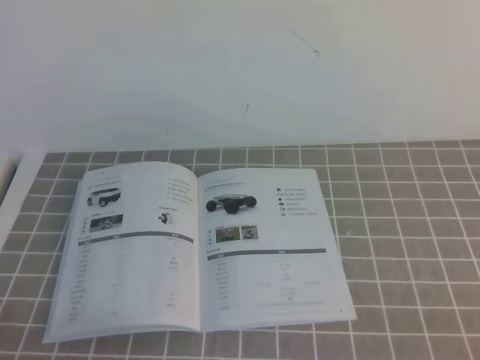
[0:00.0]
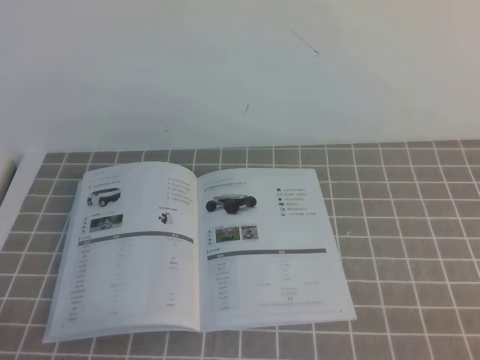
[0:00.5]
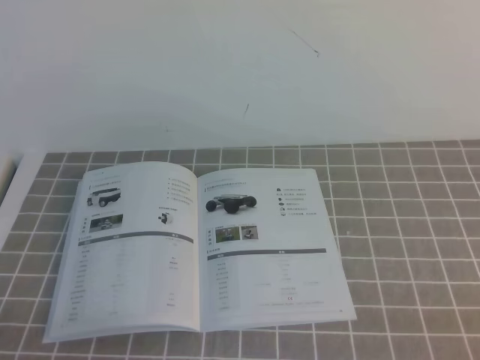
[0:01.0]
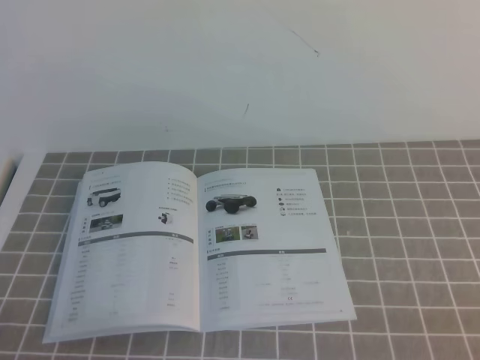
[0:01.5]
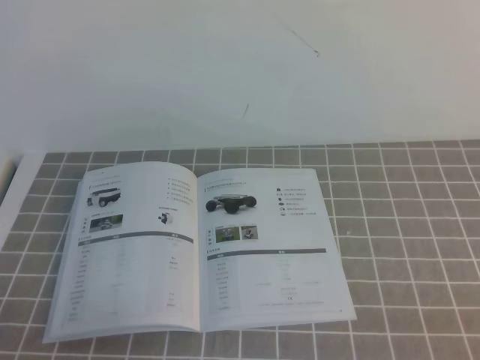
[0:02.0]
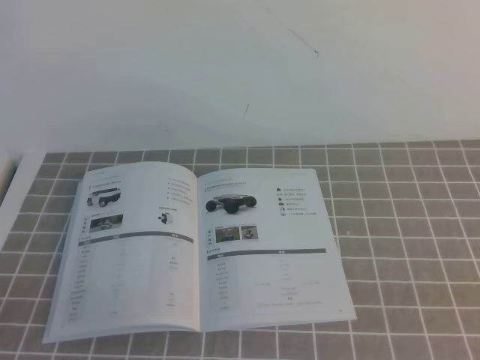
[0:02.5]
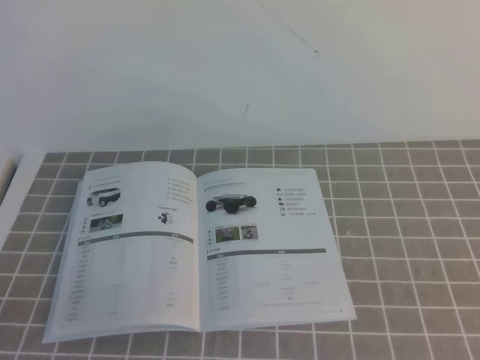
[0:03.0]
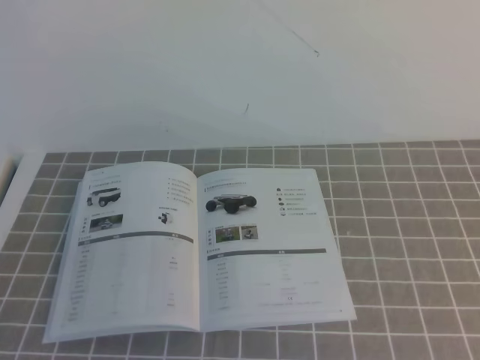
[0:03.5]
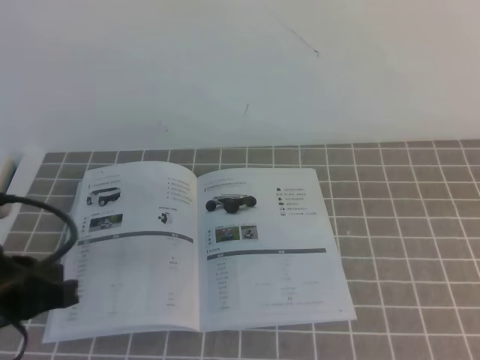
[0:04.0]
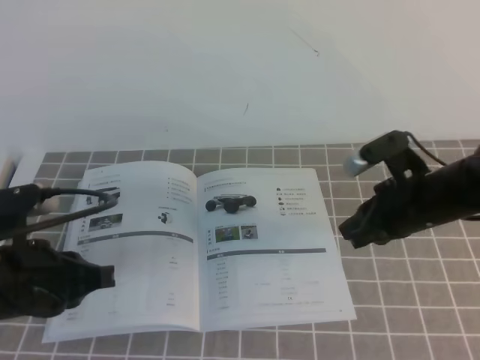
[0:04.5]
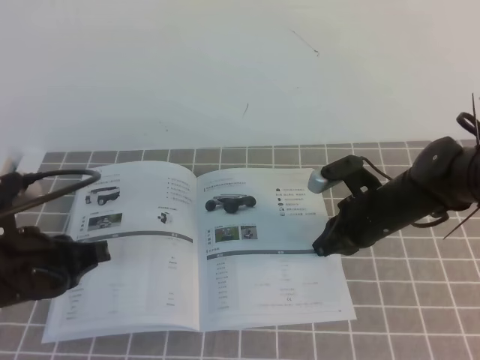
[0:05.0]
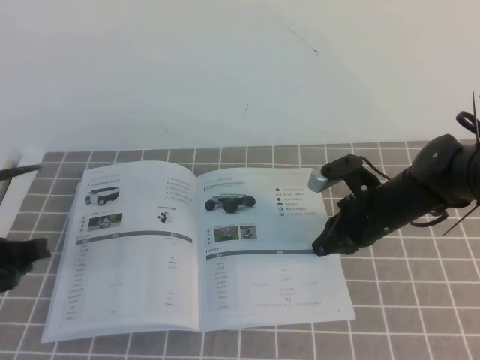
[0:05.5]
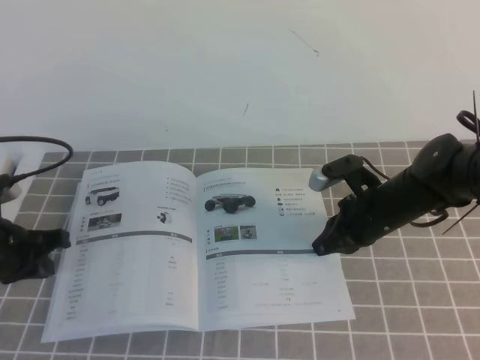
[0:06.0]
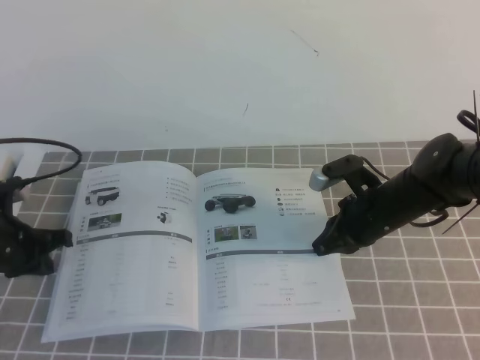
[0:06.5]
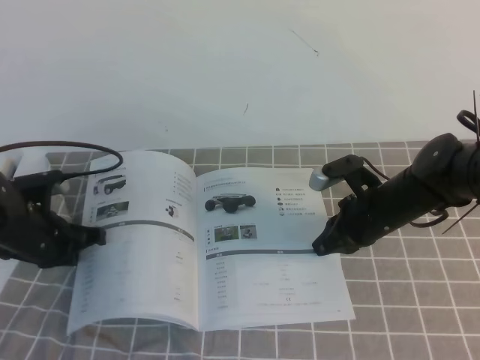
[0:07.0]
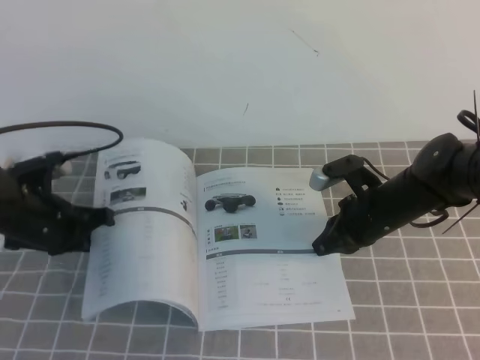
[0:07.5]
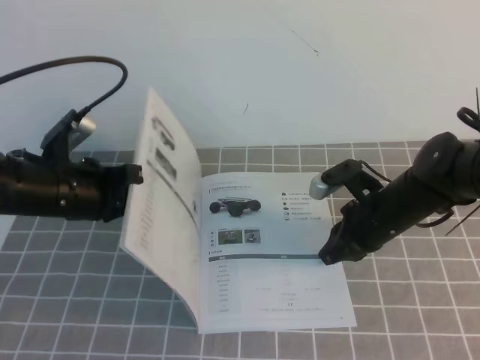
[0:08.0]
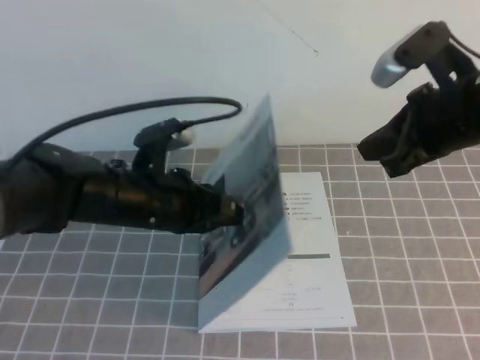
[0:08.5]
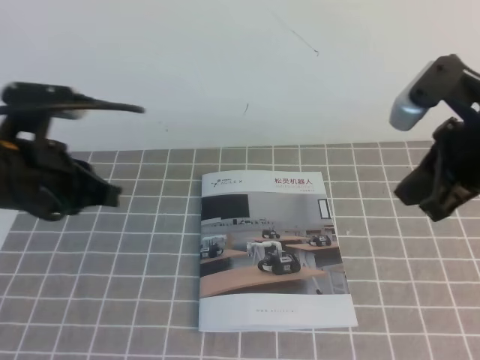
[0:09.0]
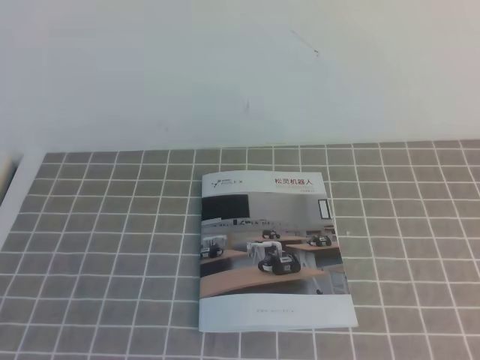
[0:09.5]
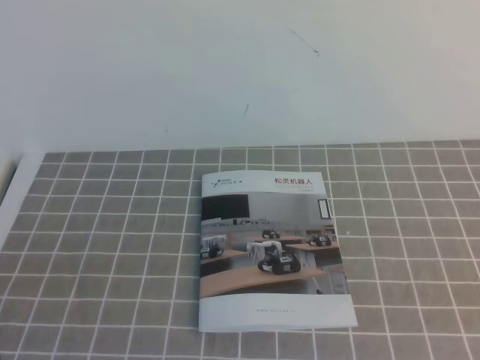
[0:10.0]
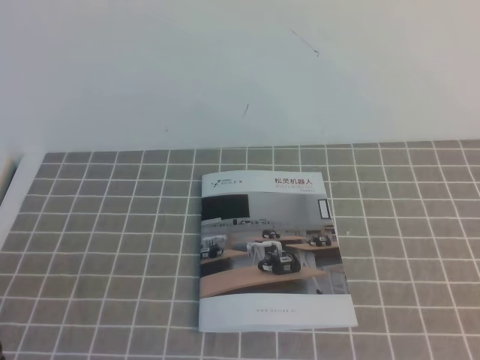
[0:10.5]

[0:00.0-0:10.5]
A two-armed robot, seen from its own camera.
Task of the whole recording: on the grey tablecloth, hold the book with one hand and close it with the other.
0:02.0 to 0:04.0: The right gripper goes approximately 20 cm forward and upward. The left gripper heads forward and upward, covering some 15 cm.
0:04.0 to 0:06.5: The right gripper shifts some 25 cm downward, to the left and forward, while the left gripper goes approximately 25 cm forward and downward, and opens, then closes once more.
0:06.5 to 0:08.5: The left gripper travels to the right and upward by about 20 cm. Meanwhile the right gripper goes about 20 cm upward.
0:08.5 to 0:10.5: The right gripper moves backward and to the right, roughly 30 cm. The left gripper heads backward and to the left, covering some 25 cm.

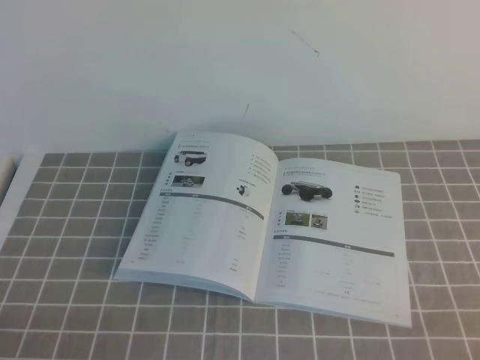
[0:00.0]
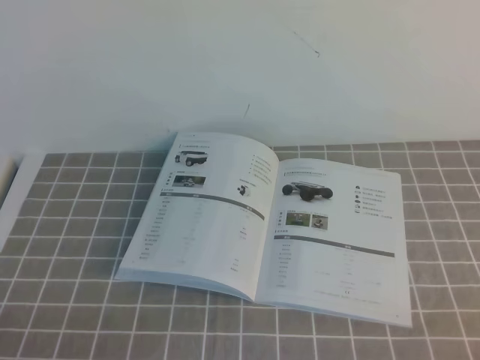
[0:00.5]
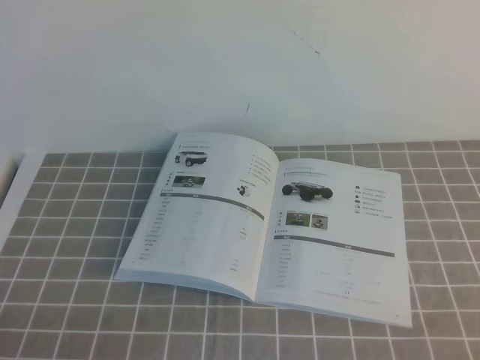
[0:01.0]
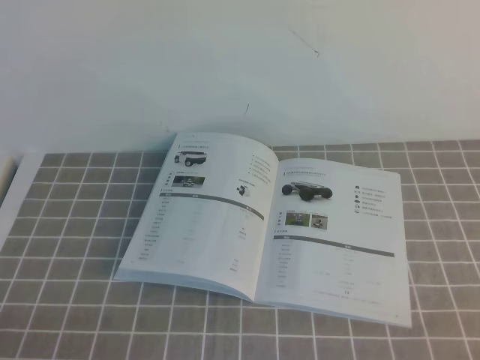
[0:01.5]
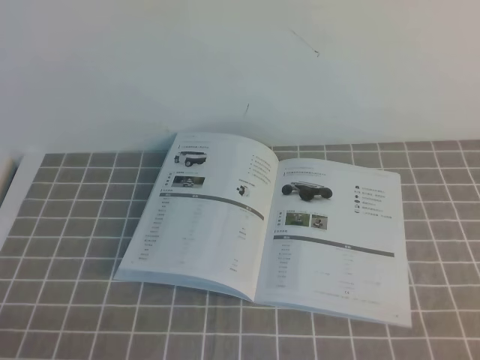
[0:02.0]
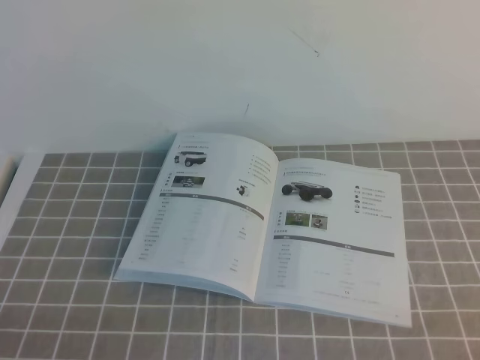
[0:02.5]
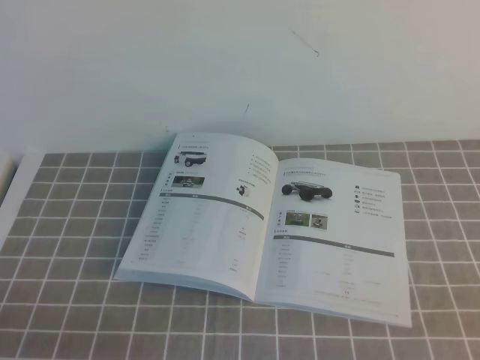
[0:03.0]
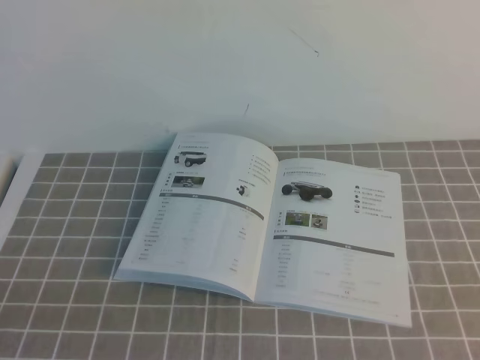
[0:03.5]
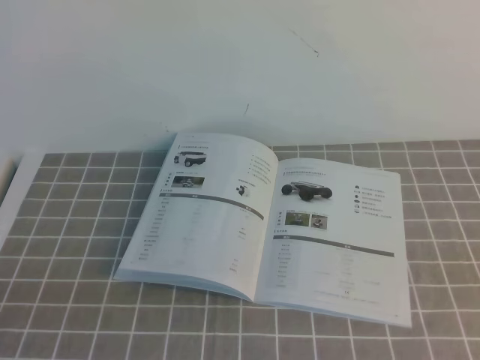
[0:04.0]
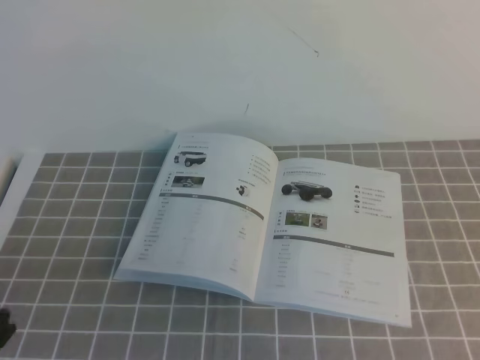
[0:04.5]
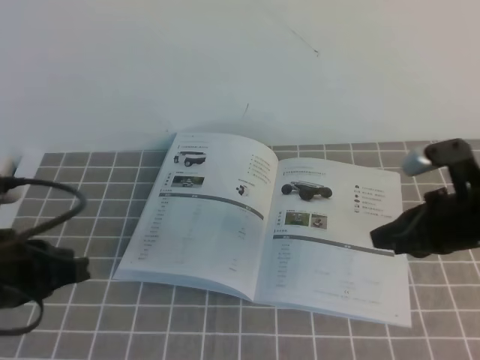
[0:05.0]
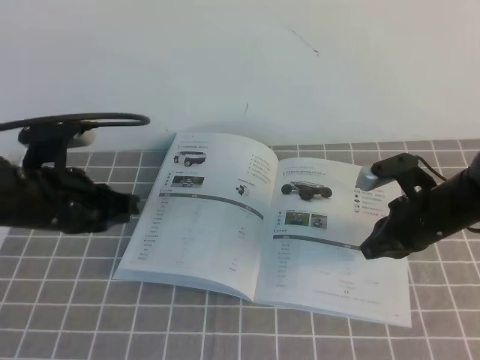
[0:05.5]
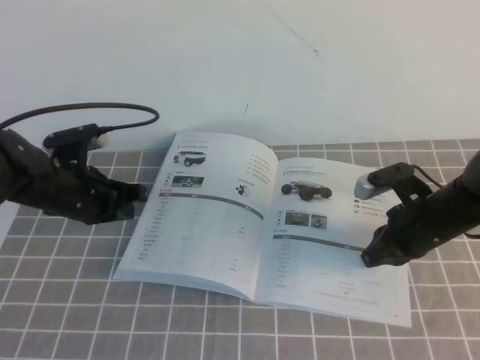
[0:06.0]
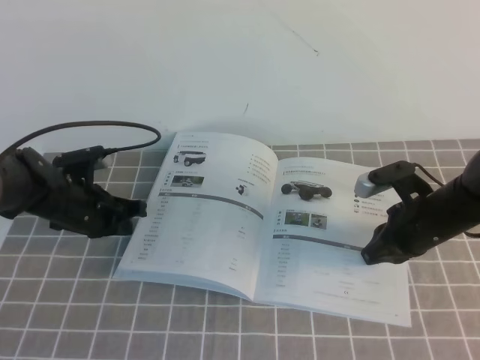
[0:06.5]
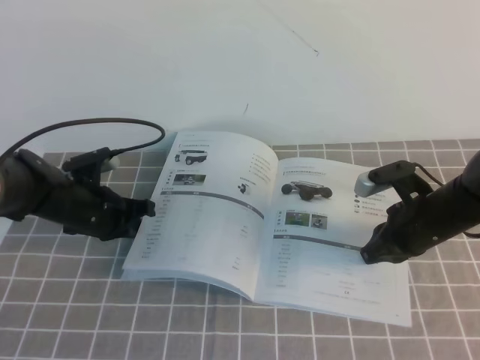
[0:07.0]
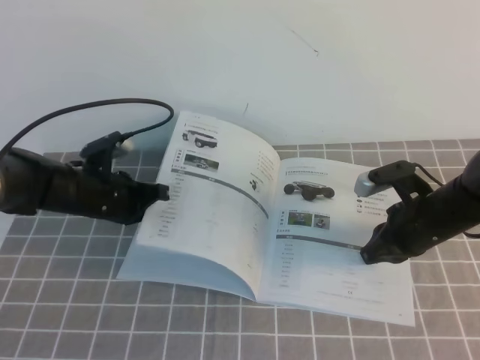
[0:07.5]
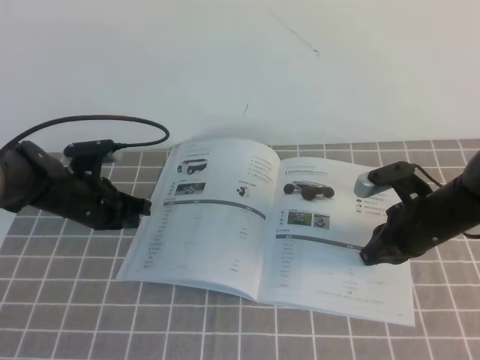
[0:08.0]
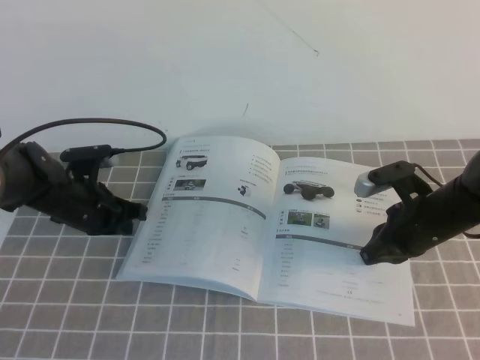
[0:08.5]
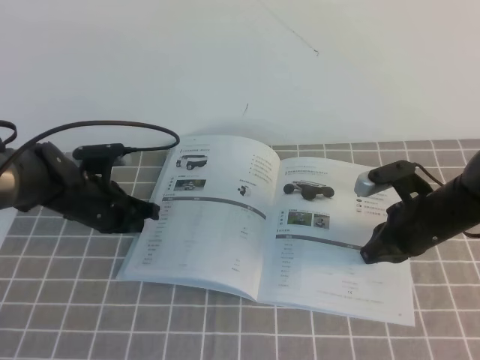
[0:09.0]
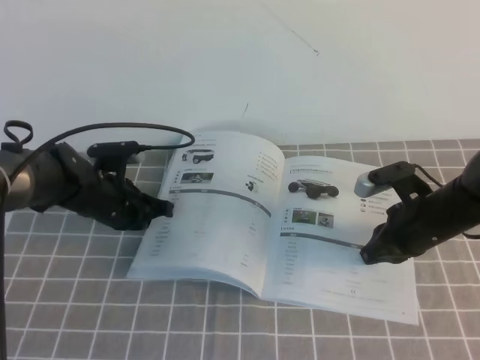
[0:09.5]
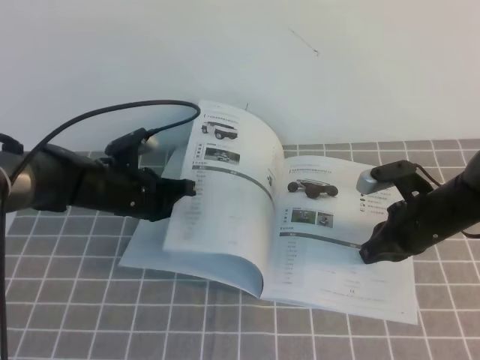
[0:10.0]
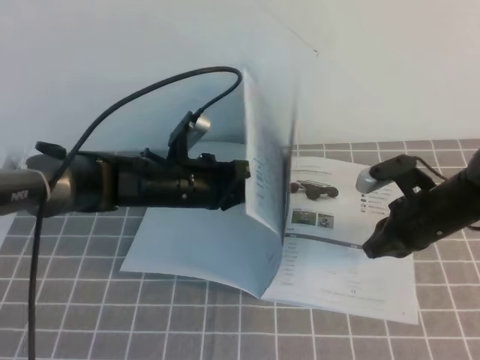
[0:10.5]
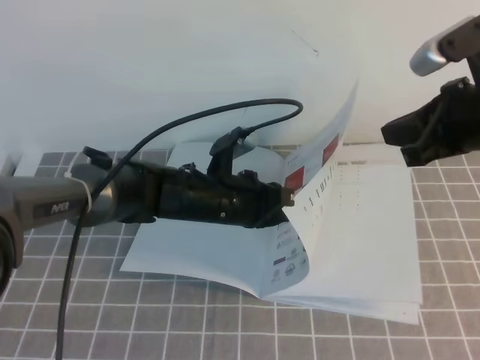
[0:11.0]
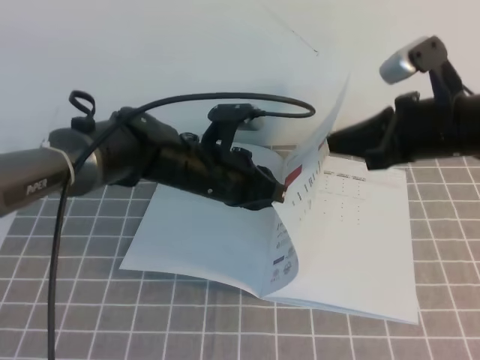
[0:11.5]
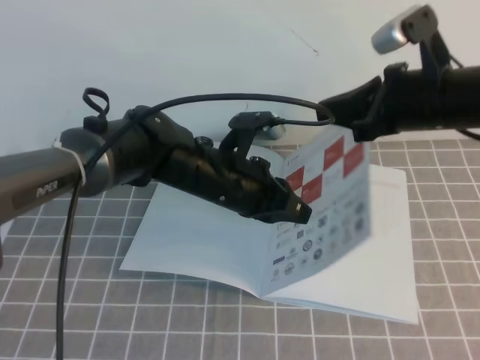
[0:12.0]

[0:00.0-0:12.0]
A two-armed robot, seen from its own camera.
Task of the whole recording: on the grey tablecloth, hold the book with one hand and close it with the other.
0:04.0 to 0:06.0: The right gripper heads forward and downward, covering about 35 cm. Meanwhile the left gripper is displaced forward by approximately 35 cm.
0:06.0 to 0:08.0: The left gripper moves some 5 cm.
0:08.0 to 0:10.0: The left gripper is displaced to the right by about 5 cm.
0:10.0 to 0:12.0: The left gripper moves to the right and upward, some 15 cm. The right gripper goes about 15 cm upward.

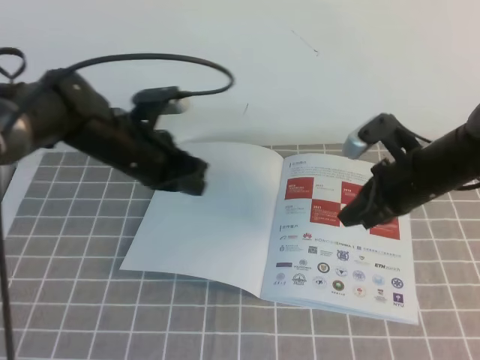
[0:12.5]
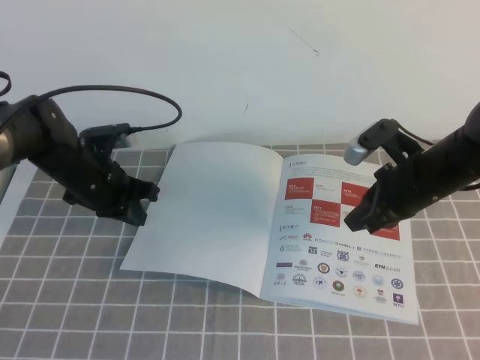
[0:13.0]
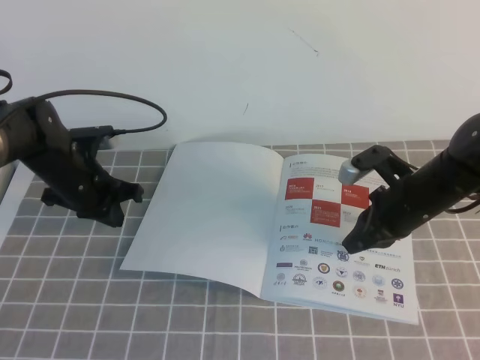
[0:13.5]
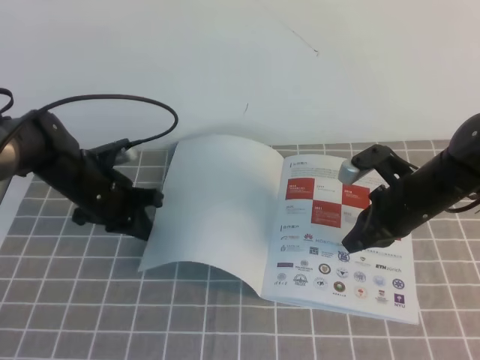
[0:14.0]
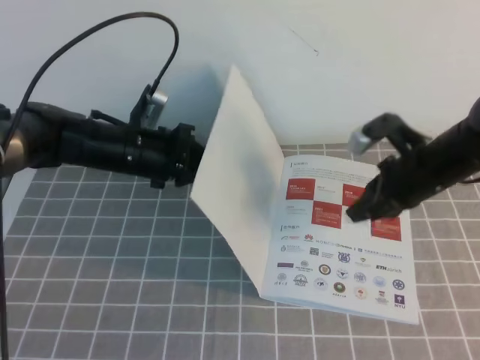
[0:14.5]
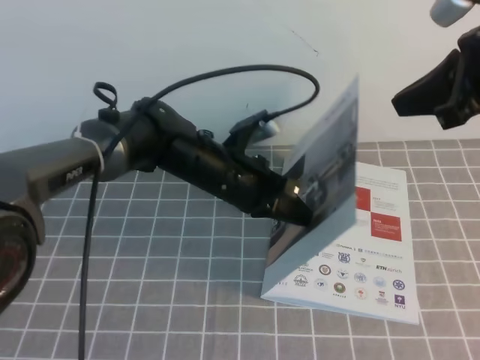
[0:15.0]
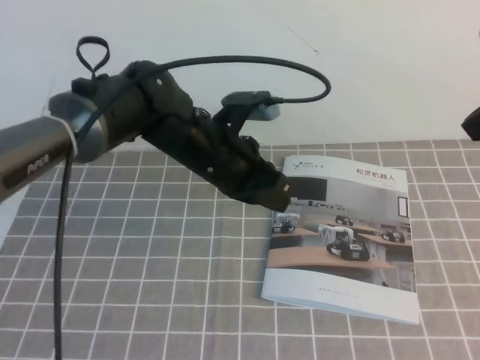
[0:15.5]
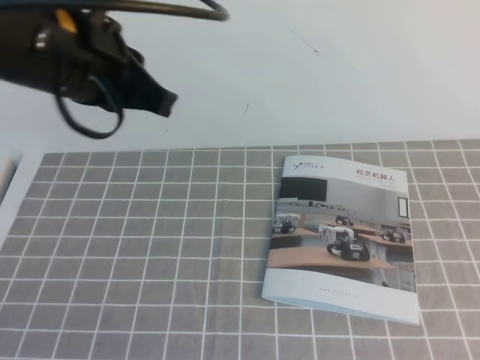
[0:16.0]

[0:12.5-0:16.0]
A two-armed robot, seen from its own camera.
Task of the whole recording: on the grey tablecloth, hold the book with one hand and close it with the other.
0:12.5 to 0:14.5: The left gripper moves roughly 10 cm to the left and comes back.
0:14.5 to 0:16.0: The left gripper travels upward and backward by roughly 25 cm. Meanwhile the right gripper is displaced backward and upward by roughly 30 cm.
